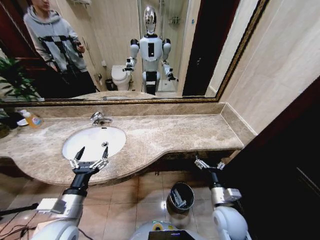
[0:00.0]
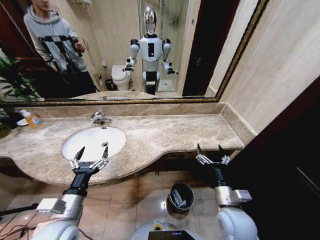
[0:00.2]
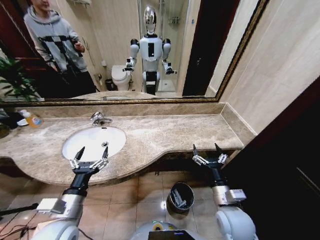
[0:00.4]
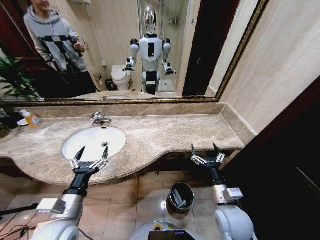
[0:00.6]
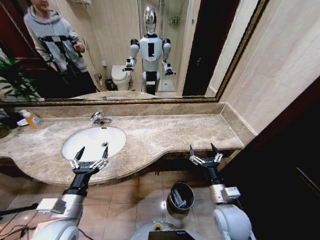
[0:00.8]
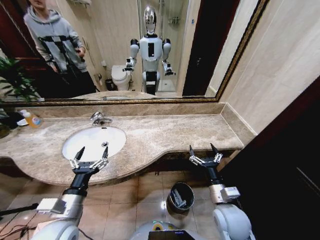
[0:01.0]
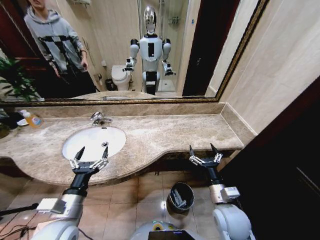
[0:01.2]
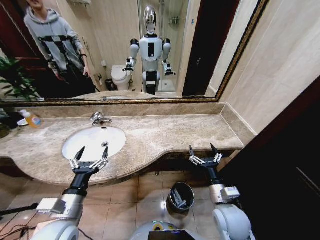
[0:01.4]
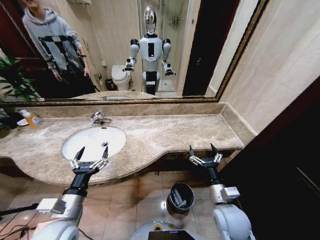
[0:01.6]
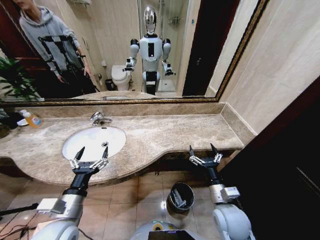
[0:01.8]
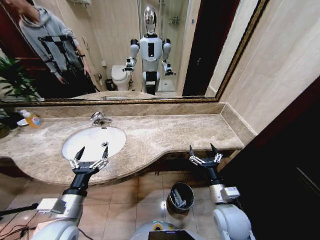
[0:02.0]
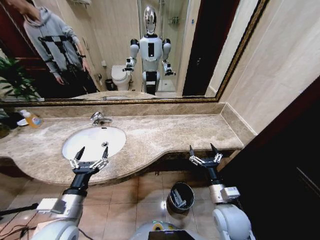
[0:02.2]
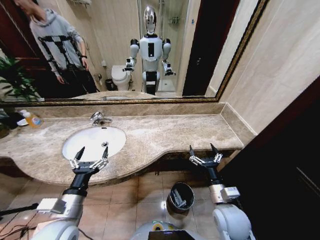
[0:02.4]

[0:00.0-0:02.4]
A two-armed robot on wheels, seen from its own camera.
Task of the whole recording: Pick up the trash from the sink and place it in the trash bin.
0:00.0 to 0:01.2: The grippers move only a little.
0:01.2 to 0:02.4: Both grippers stay put.

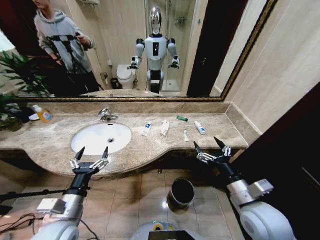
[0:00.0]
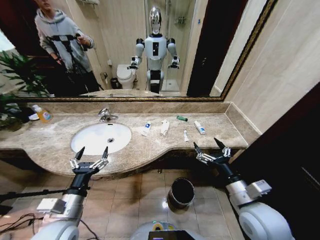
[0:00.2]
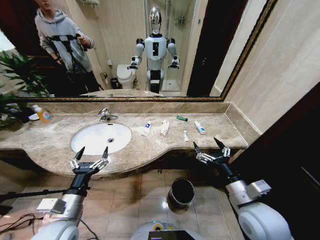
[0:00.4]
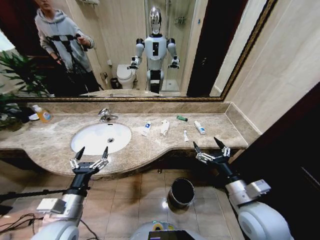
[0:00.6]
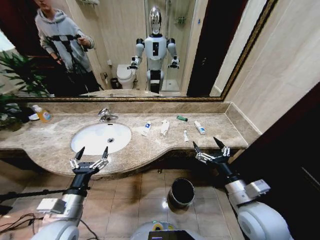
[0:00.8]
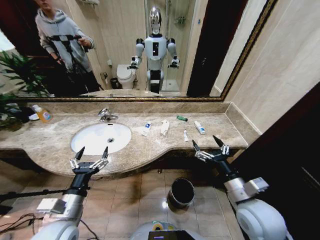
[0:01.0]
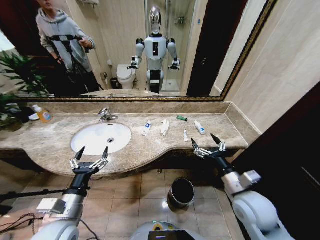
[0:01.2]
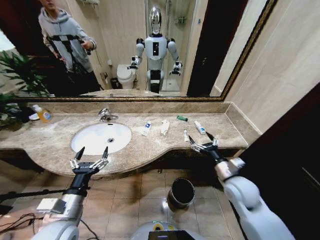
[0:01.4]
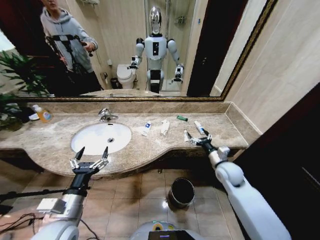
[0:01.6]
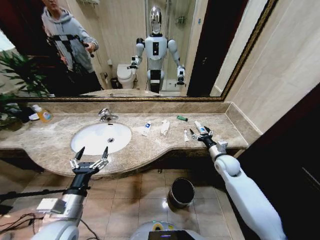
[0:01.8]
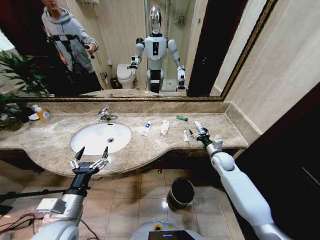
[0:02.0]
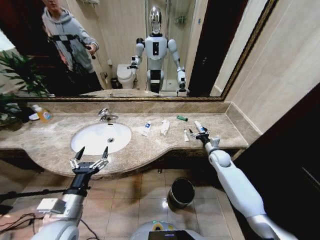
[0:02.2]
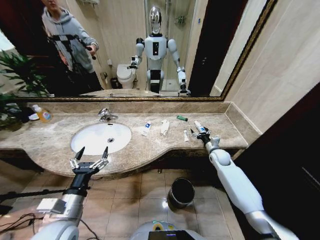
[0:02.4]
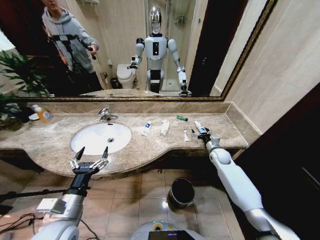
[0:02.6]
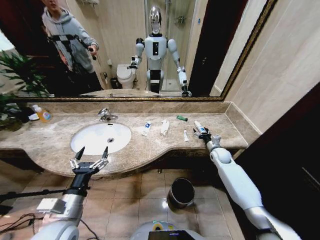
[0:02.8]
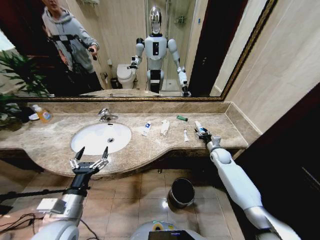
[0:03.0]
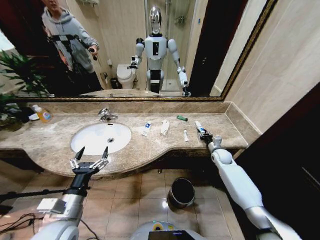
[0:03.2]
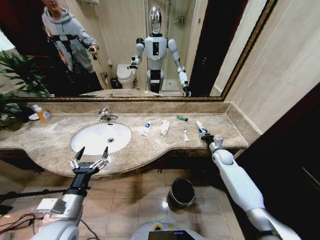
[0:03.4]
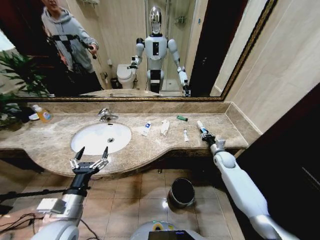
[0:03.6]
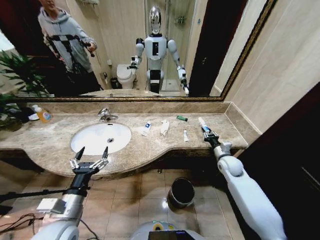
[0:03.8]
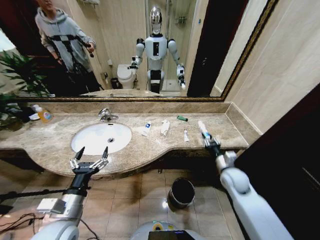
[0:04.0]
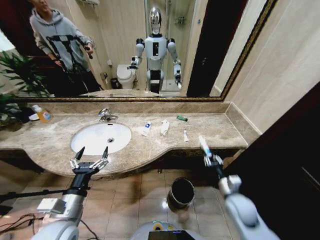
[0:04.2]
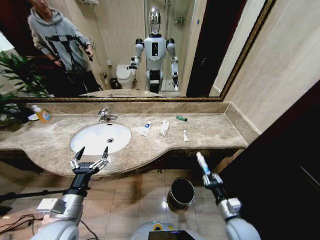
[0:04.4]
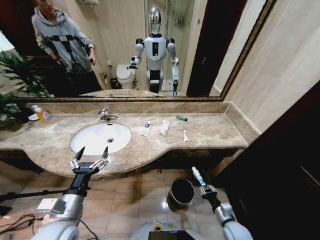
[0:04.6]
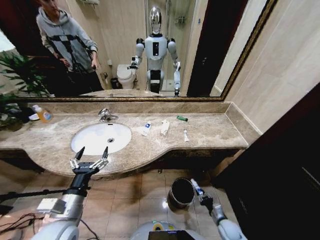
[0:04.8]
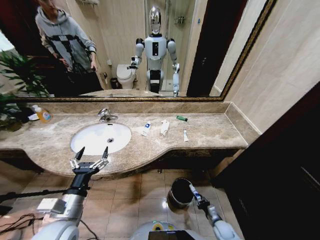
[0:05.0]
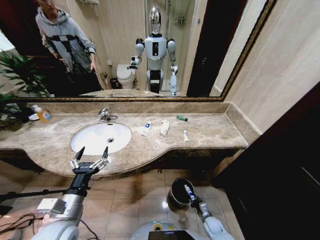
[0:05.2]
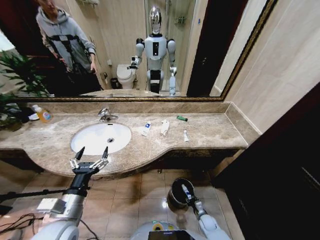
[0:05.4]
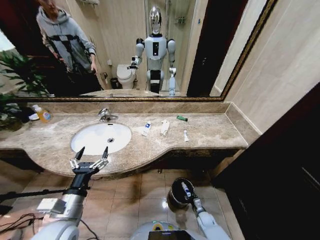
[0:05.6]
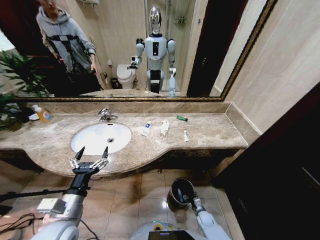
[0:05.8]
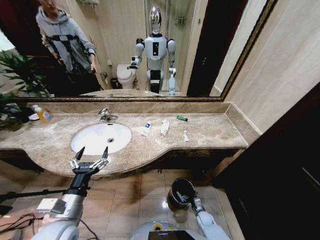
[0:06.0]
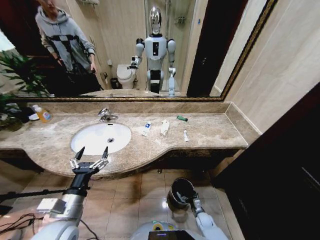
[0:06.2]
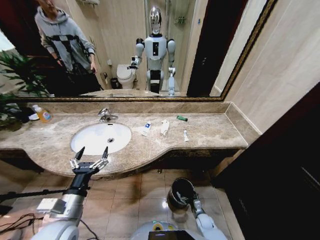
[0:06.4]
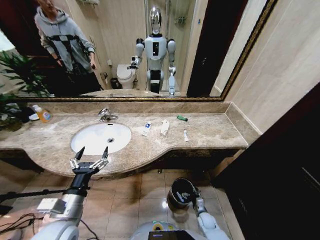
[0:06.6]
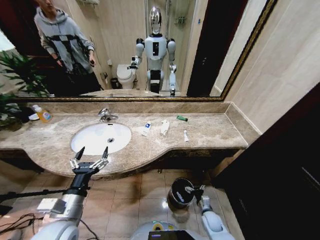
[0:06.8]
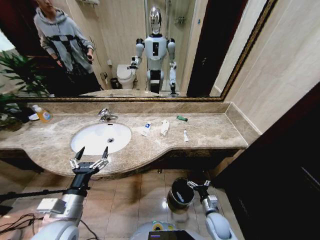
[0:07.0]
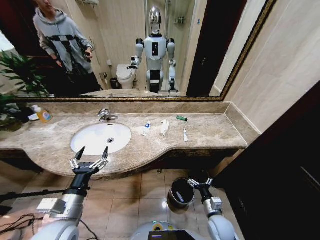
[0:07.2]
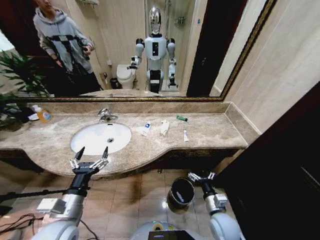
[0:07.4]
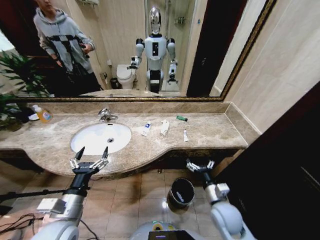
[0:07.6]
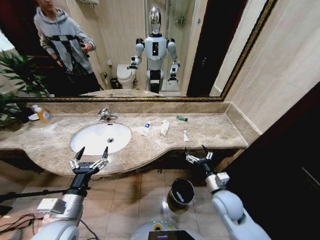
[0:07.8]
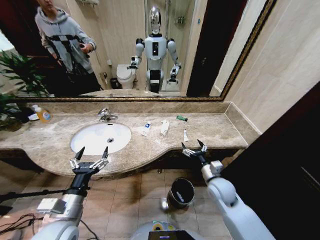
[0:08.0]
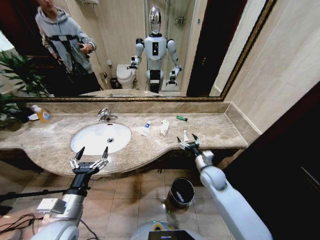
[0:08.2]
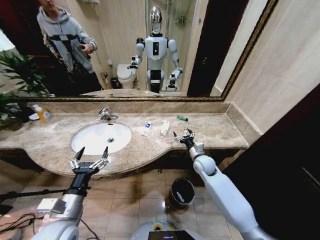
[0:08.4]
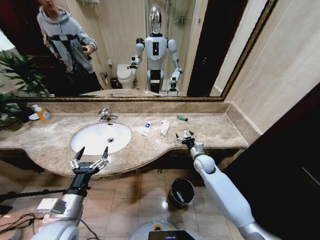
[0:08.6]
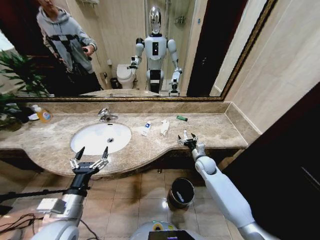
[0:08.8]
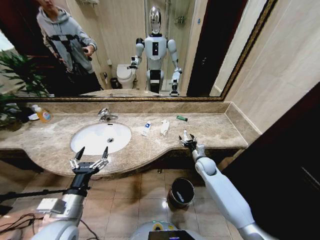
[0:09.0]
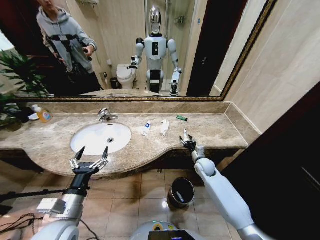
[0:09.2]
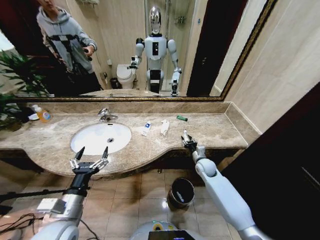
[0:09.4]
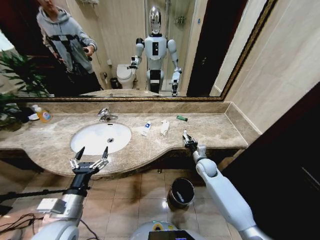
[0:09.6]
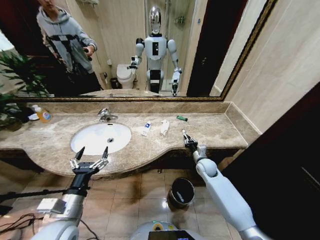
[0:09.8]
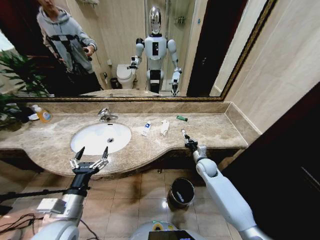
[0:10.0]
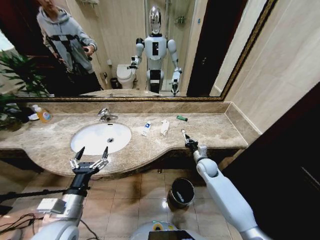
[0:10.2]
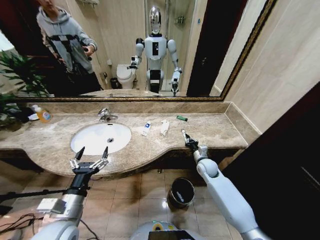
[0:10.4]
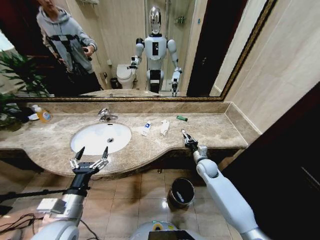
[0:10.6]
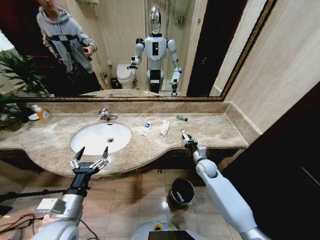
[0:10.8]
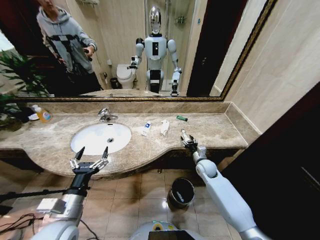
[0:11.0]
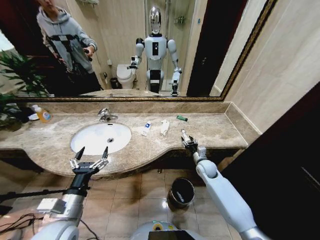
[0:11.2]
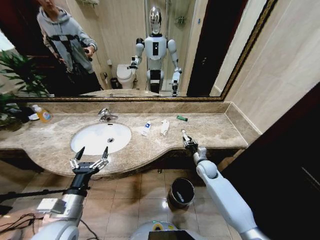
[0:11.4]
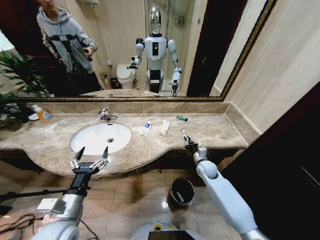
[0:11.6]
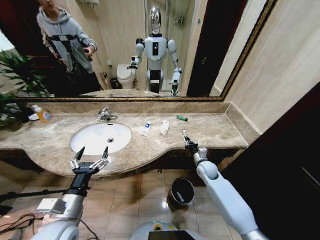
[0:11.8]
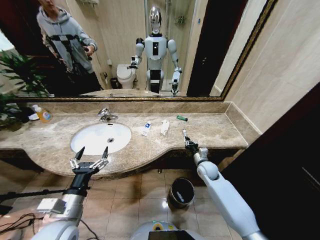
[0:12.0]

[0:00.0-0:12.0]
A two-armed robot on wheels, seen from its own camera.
Task of the whole recording: Pick up the trash from the sink and place it in the trash bin.
0:01.6 to 0:03.0: The right gripper is displaced forward, downward and to the right by about 15 cm.
0:03.0 to 0:04.4: The right gripper shifts approximately 30 cm backward, and closes.
0:04.4 to 0:06.0: The right gripper goes some 25 cm downward, and opens.
0:06.0 to 0:07.6: The right gripper shifts approximately 30 cm upward.
0:07.6 to 0:09.0: The right gripper is displaced forward by approximately 20 cm.
0:09.0 to 0:10.4: The right gripper closes.
0:10.4 to 0:12.0: The right gripper opens, then closes once more.

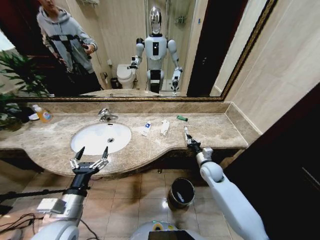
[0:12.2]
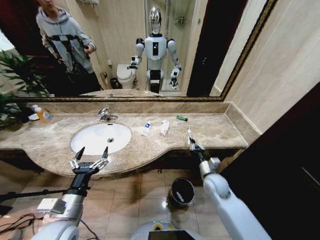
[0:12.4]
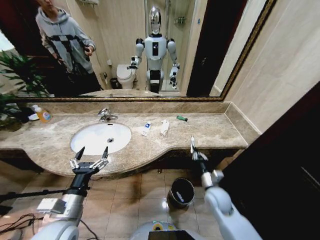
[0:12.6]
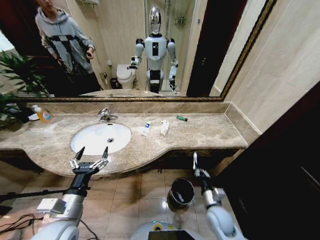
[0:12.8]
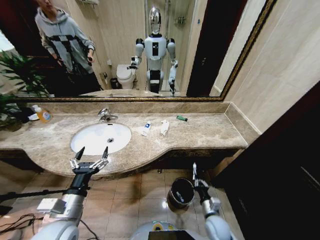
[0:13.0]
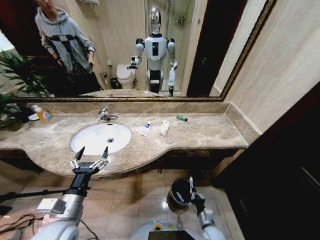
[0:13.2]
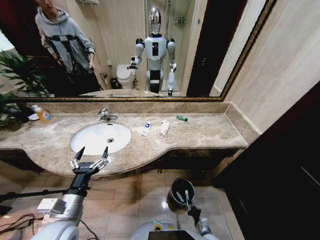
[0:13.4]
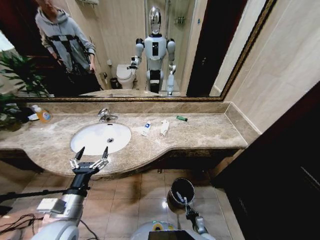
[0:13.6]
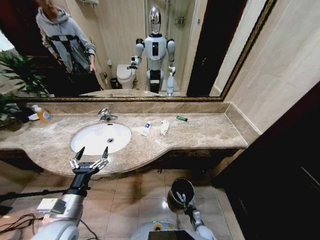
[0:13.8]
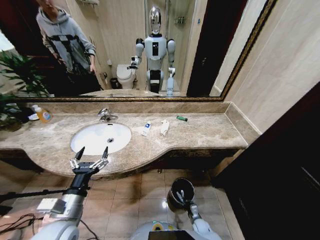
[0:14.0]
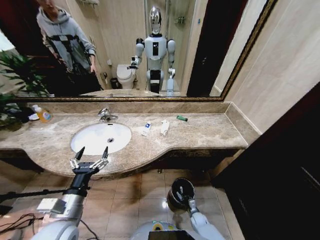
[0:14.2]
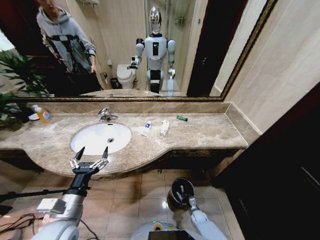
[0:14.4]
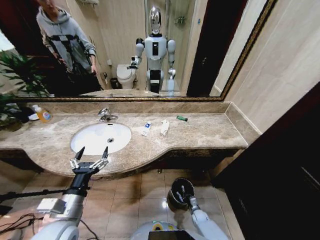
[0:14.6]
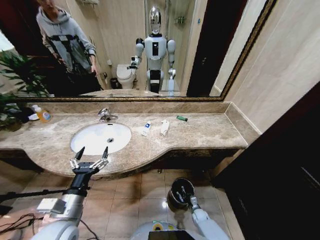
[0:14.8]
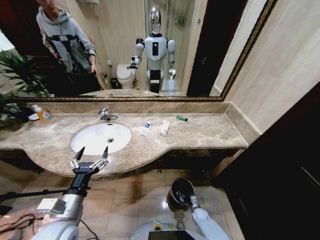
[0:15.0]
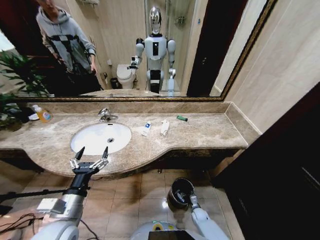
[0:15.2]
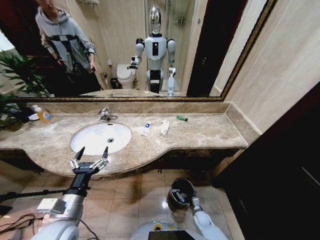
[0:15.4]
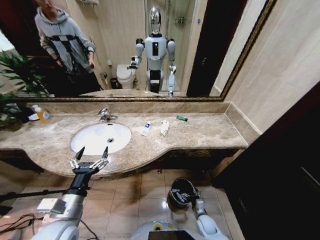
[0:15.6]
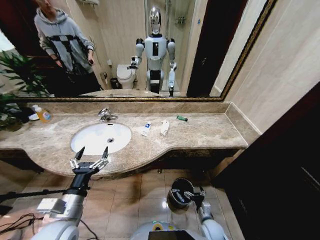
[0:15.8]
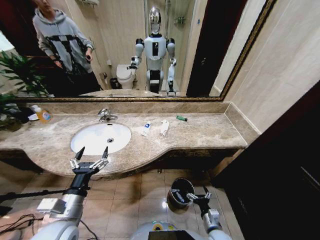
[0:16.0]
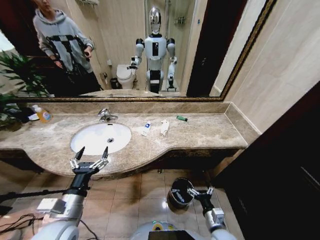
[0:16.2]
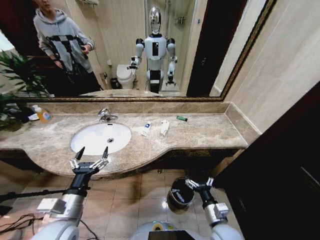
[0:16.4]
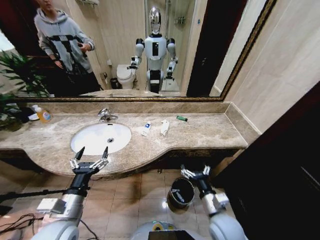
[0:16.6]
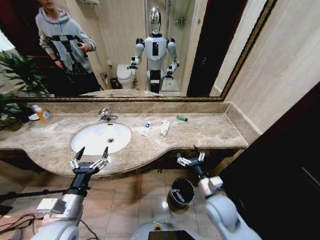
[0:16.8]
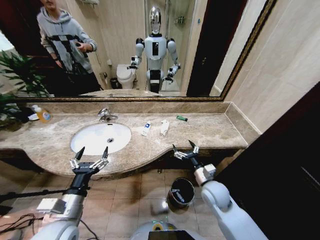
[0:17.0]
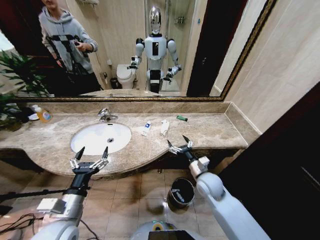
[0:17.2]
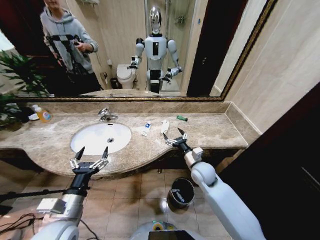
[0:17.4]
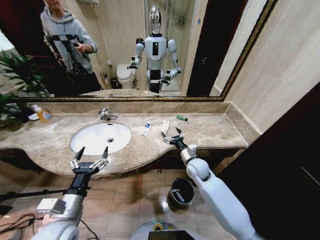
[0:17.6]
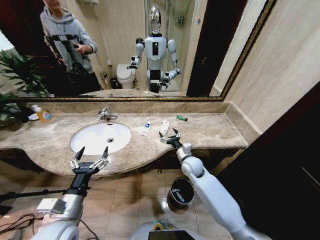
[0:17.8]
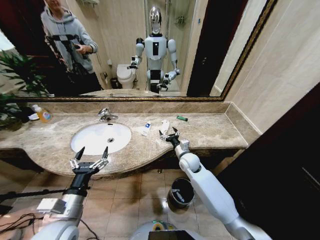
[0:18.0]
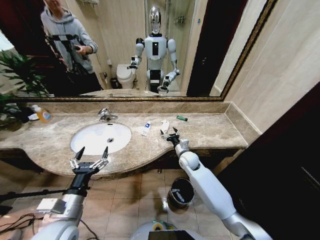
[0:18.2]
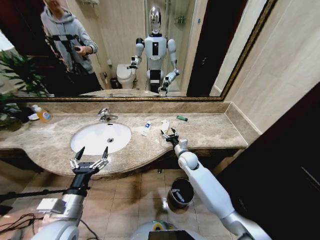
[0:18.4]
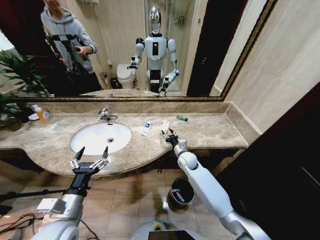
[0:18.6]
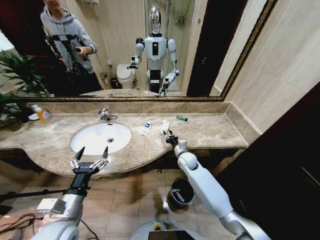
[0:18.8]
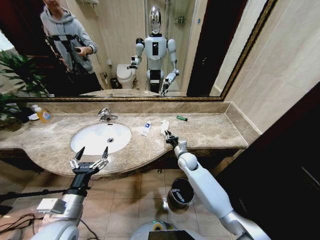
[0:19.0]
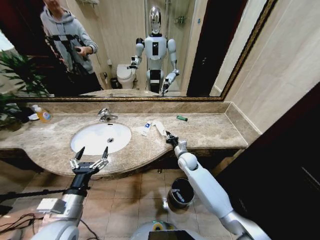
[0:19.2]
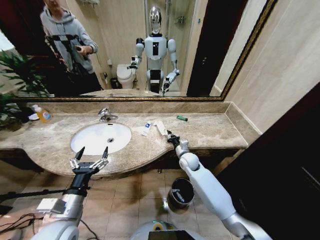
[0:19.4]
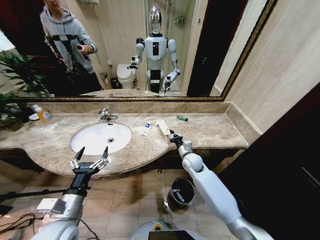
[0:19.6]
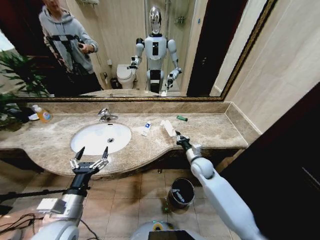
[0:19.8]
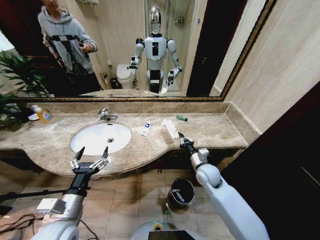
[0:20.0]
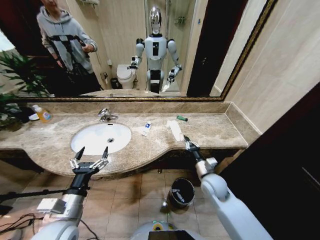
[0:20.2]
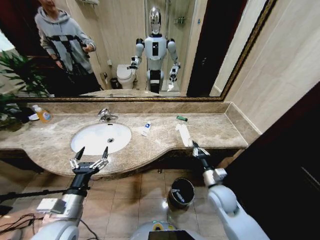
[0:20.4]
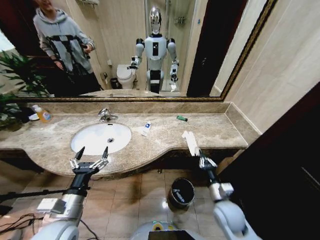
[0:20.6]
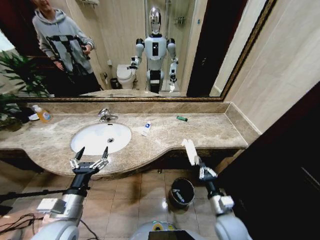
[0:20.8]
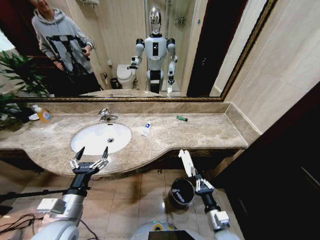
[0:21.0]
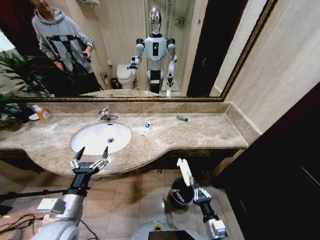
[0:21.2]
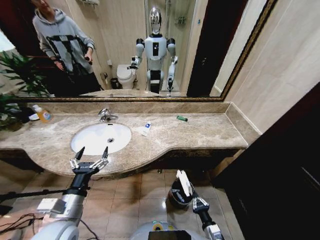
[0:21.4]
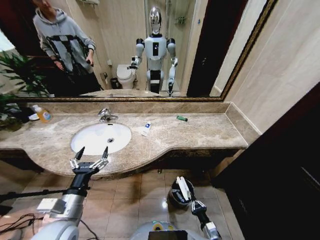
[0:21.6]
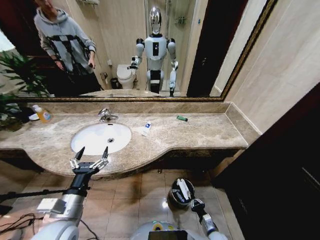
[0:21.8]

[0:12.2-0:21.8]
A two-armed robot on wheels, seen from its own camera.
Task of the whole recording: Pick up the trash from the sink and place it in the trash bin.
0:12.2 to 0:13.8: The right gripper shifts approximately 40 cm downward and backward.
0:13.8 to 0:15.4: The right gripper goes approximately 5 cm forward, and opens.
0:15.4 to 0:17.0: The right gripper moves upward, about 30 cm.
0:17.0 to 0:18.6: The right gripper travels forward by roughly 20 cm, and closes its fingers.
0:18.6 to 0:20.2: The right gripper goes roughly 15 cm backward and to the right, and closes its fingers.
0:20.2 to 0:21.8: The right gripper travels downward and backward by approximately 30 cm.
